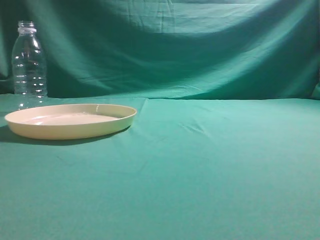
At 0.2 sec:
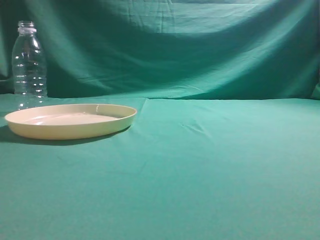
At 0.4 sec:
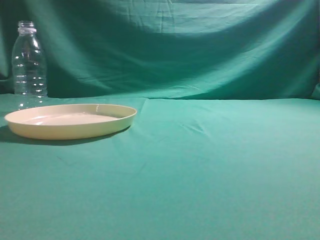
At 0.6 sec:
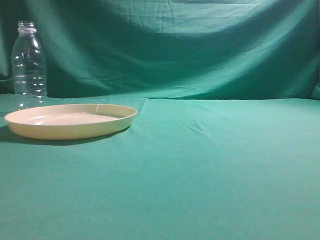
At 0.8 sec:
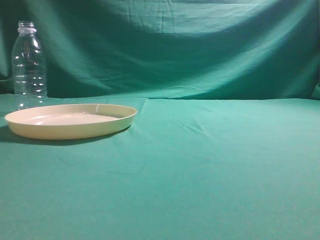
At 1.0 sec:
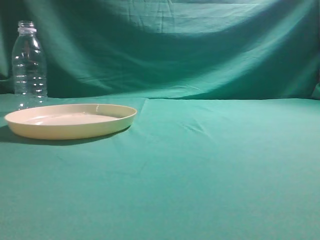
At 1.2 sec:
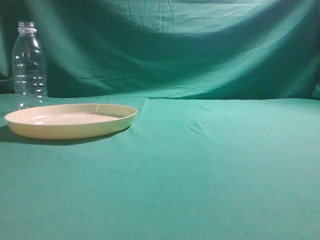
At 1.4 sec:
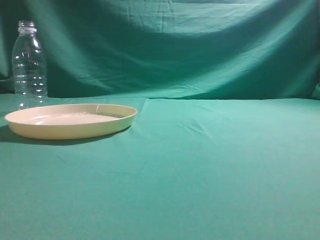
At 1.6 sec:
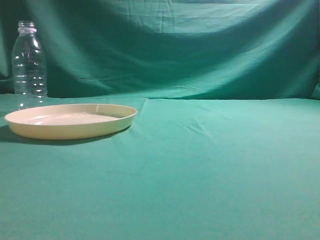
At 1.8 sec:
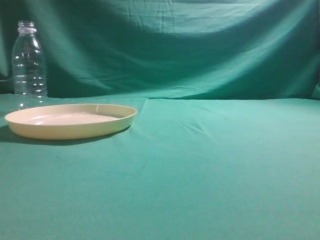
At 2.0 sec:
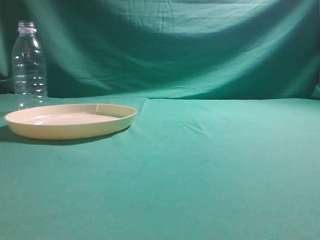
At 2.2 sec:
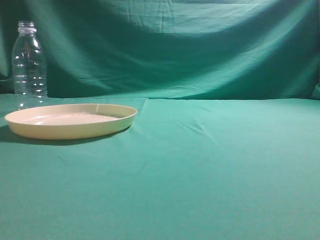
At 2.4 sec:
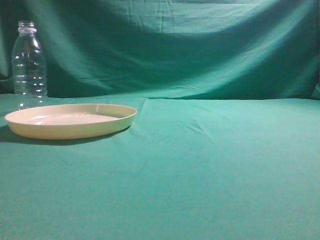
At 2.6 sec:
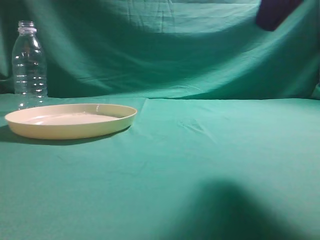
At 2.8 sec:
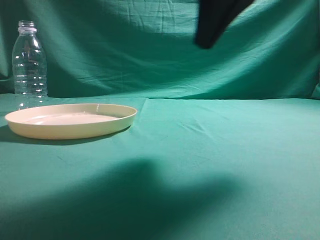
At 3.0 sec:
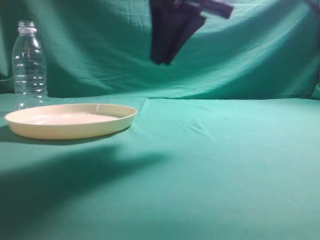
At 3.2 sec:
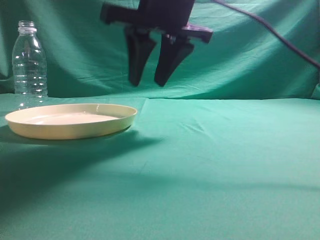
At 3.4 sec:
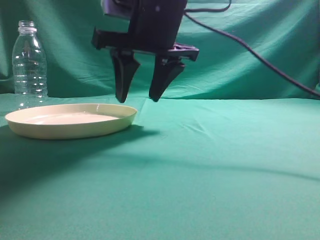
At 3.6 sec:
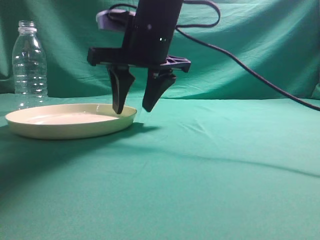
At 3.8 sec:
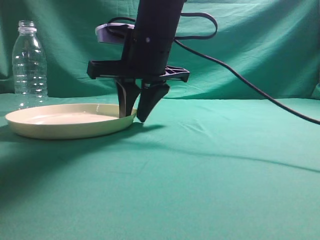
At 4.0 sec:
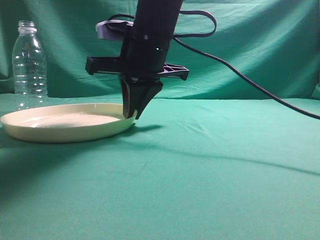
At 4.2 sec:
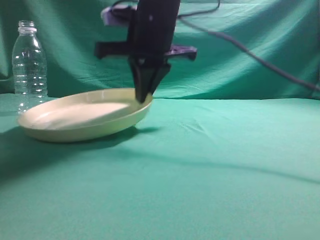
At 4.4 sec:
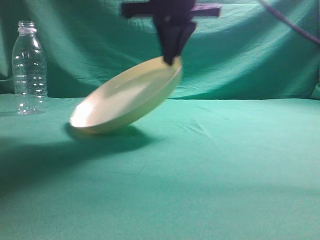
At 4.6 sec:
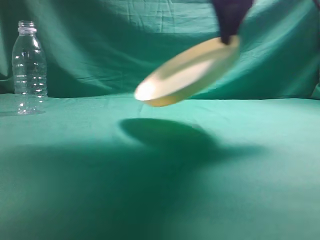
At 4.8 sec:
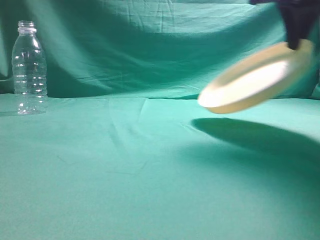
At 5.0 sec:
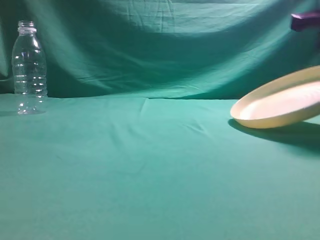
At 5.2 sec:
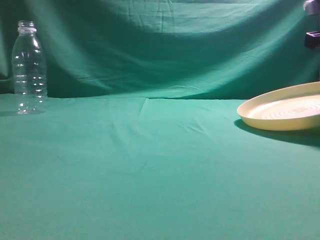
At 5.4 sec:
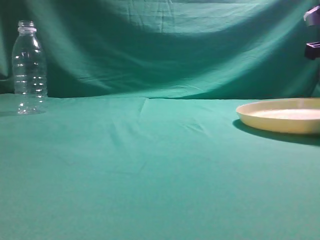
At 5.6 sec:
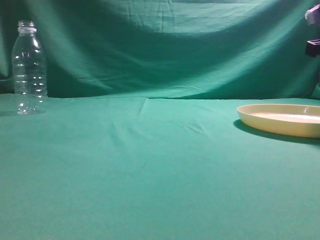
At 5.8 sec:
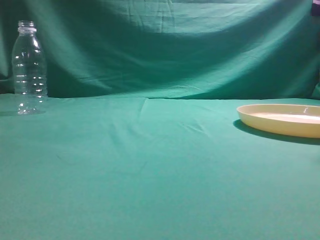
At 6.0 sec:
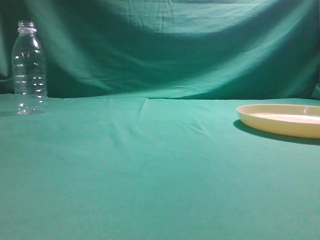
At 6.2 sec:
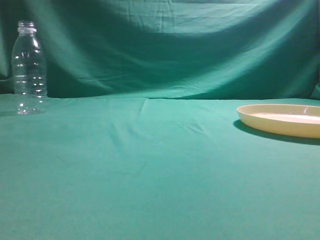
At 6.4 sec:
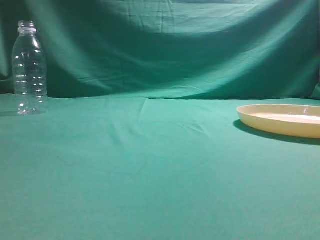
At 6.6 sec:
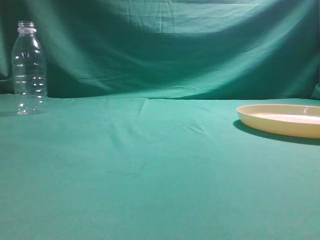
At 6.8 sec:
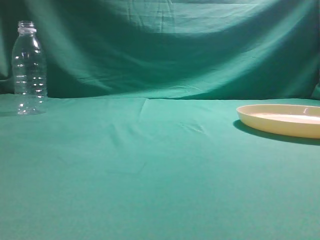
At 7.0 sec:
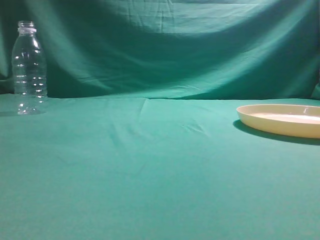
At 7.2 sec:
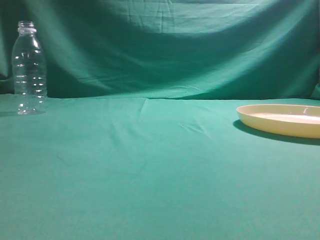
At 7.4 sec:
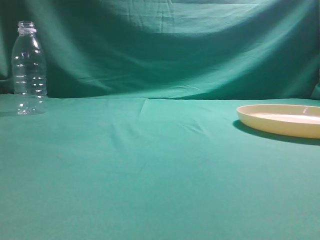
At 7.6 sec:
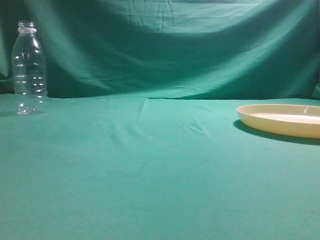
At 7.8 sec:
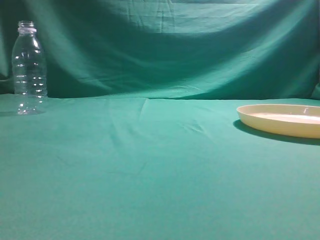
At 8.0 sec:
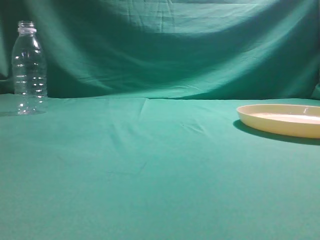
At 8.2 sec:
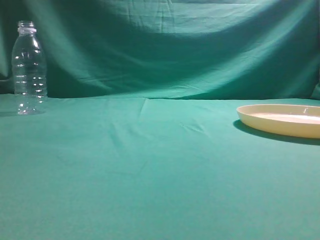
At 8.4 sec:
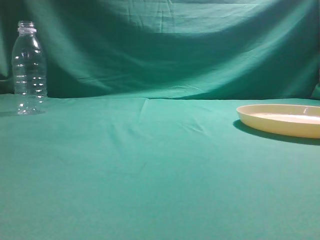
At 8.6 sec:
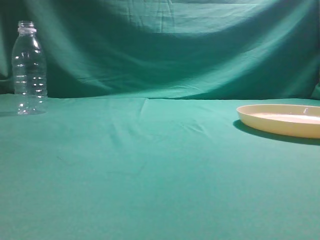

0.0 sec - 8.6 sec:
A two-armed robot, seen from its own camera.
Step, 0.0 sec - 4.4 sec: Pick the container that can hold fruits.
Step, 4.6 sec - 5.6 sec: Move the picked object to the right side of the table.
1.4 sec - 2.8 sec: The right gripper is displaced forward and to the left by some 25 cm.
2.8 sec - 4.4 sec: The right gripper is displaced forward and to the left by roughly 15 cm, and opens and closes again.
4.4 sec - 5.8 sec: The right gripper shifts some 25 cm to the right, and opens up.

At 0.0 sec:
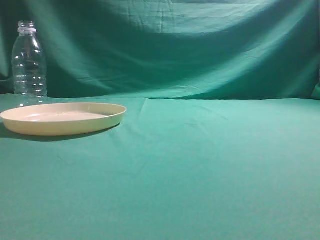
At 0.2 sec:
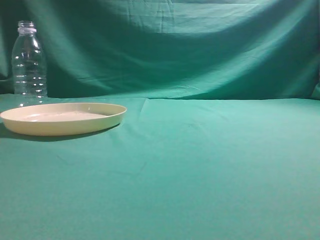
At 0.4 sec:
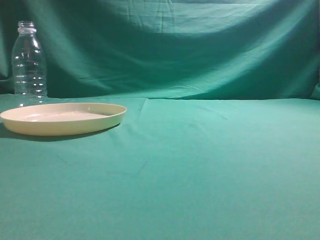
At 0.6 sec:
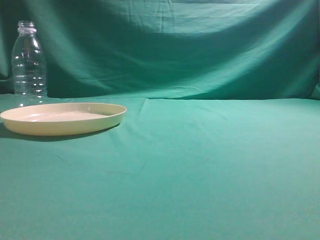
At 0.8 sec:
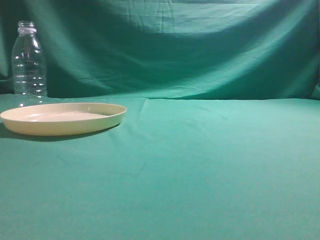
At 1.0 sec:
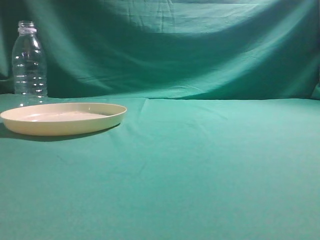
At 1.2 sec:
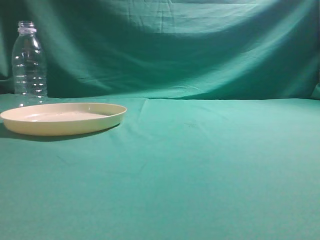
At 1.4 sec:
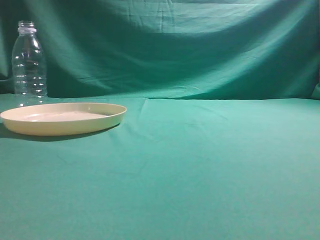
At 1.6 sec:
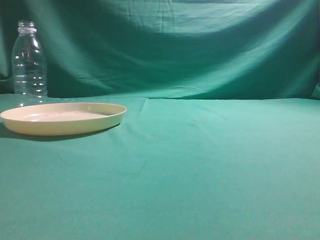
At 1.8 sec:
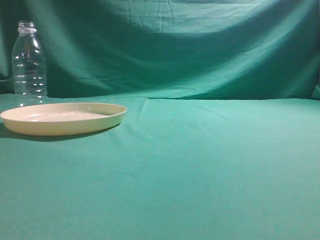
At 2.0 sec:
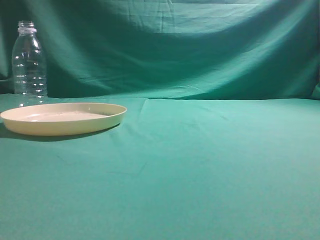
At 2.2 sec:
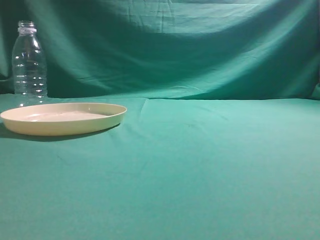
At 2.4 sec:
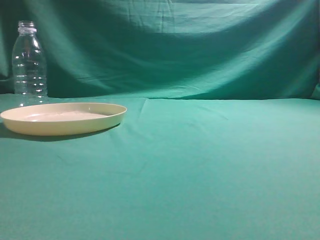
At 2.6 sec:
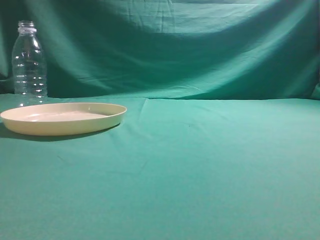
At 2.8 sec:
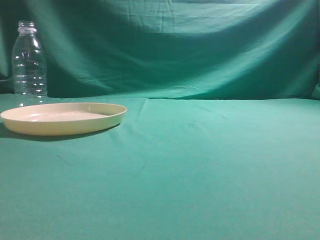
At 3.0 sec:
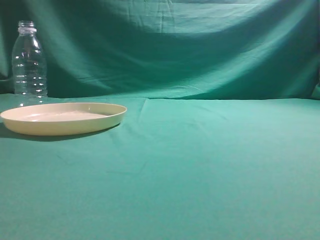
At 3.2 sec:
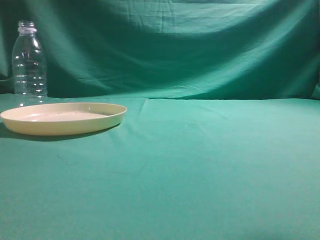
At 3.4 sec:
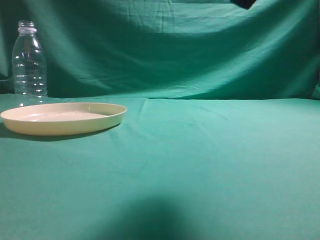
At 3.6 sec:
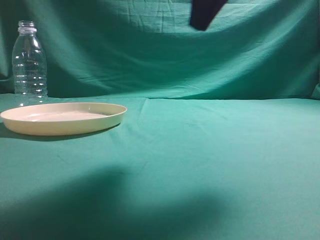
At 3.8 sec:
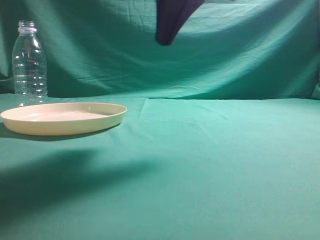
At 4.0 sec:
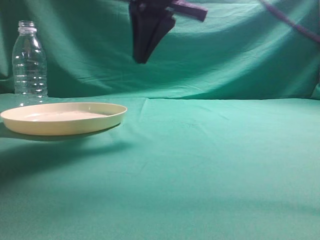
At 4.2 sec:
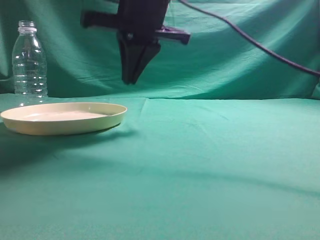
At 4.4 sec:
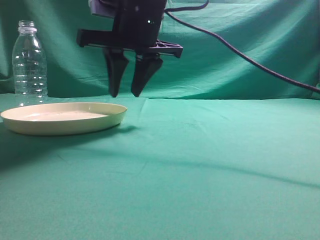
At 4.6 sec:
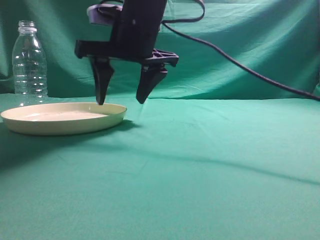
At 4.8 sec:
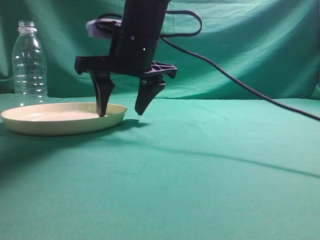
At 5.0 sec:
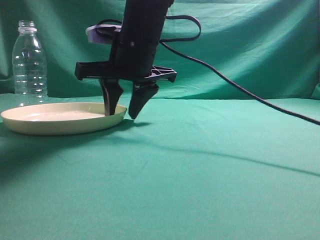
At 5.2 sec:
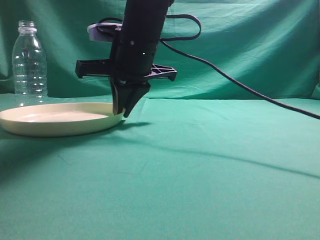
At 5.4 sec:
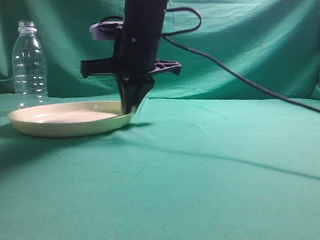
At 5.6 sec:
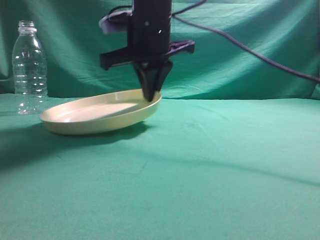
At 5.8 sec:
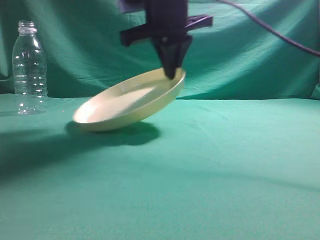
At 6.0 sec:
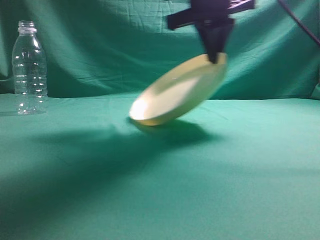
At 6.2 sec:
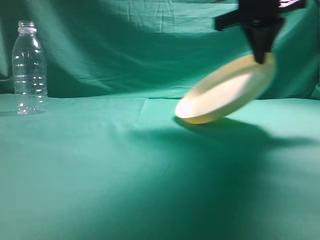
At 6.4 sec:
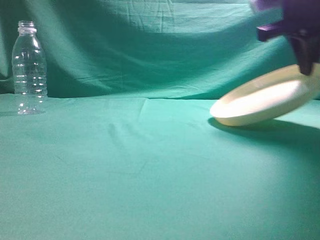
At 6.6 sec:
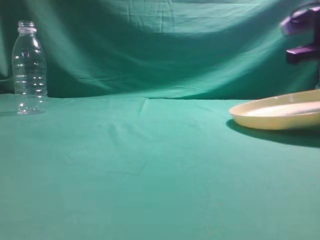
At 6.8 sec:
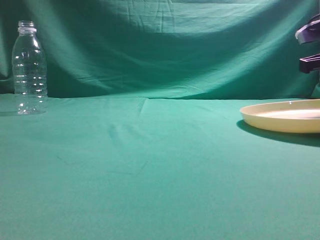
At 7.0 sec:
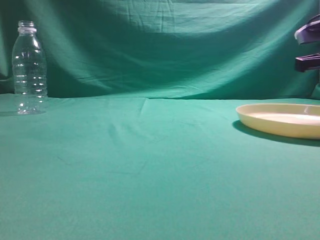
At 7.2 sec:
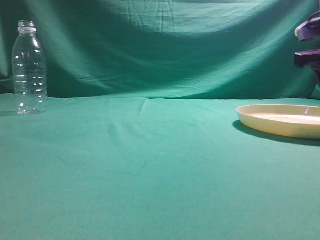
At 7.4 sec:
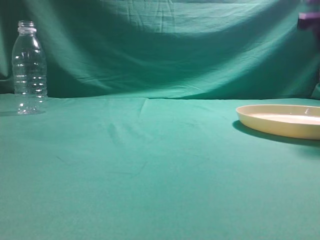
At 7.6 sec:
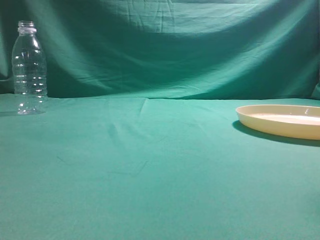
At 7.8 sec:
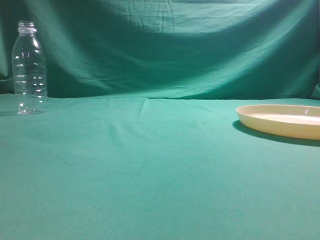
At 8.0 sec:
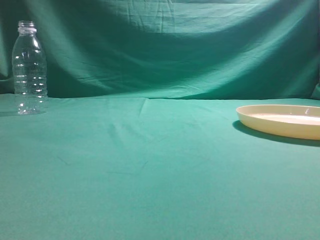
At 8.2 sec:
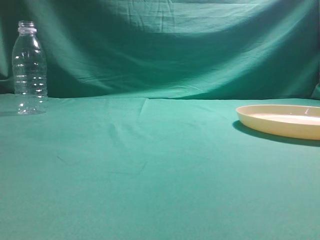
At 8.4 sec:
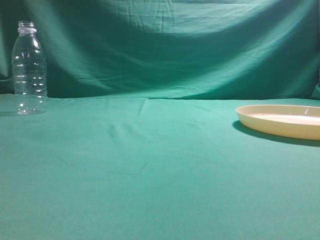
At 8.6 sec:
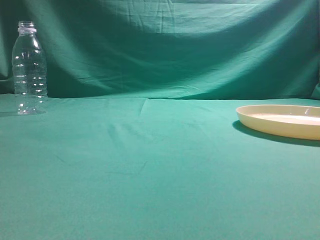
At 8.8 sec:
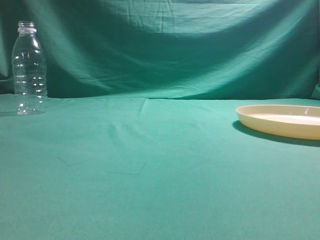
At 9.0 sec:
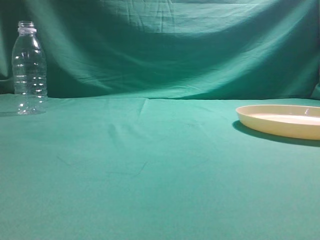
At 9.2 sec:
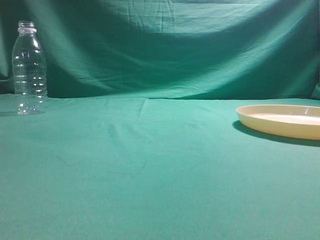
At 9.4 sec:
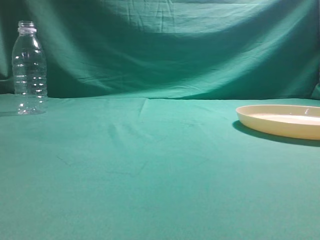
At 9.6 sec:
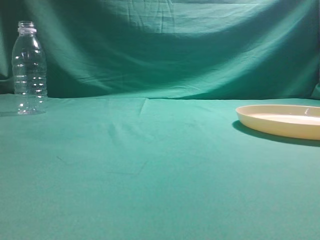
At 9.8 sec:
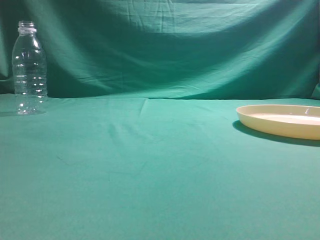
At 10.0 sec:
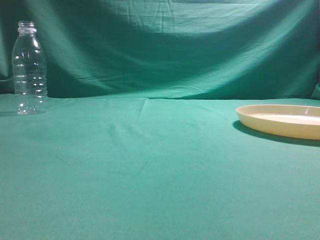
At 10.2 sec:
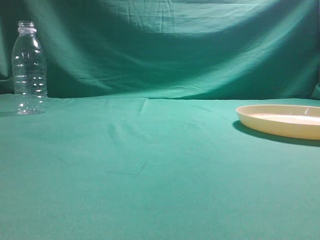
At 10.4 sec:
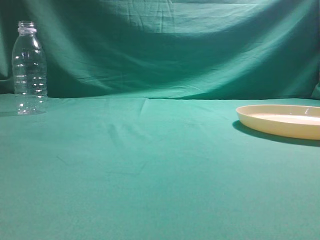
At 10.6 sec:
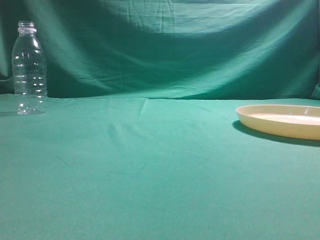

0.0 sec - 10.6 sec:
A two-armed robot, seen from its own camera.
Step, 0.0 sec - 5.6 sec: Pick the container that can hold fruits.
Step, 5.8 sec - 7.6 sec: Move the picked object to the right side of the table.
3.0 sec - 4.6 sec: The right gripper heads to the left and forward, covering about 35 cm, and opens its fingers.
4.6 sec - 6.0 sec: The right gripper is displaced to the right by some 5 cm, and closes up.
6.0 sec - 7.6 sec: The right gripper heads to the right, covering some 25 cm, and opens.
